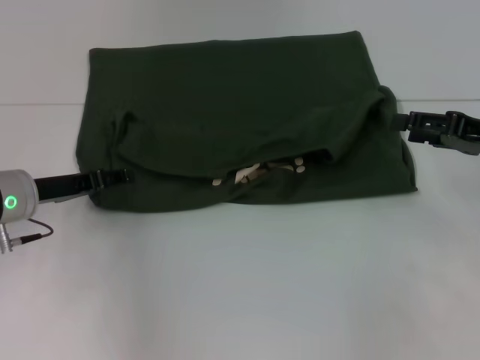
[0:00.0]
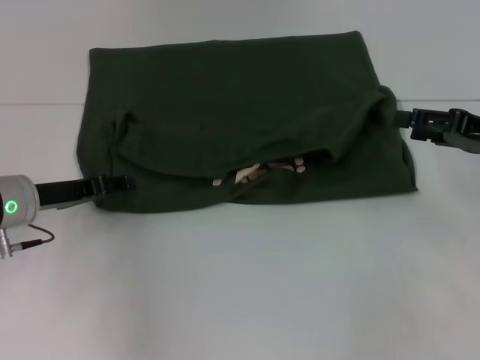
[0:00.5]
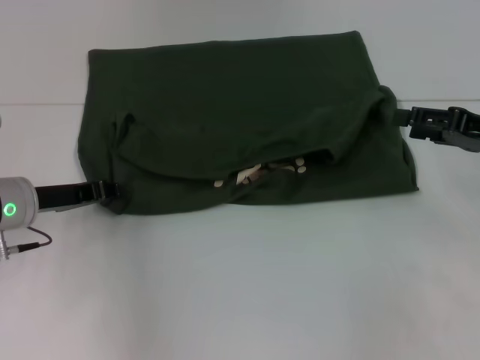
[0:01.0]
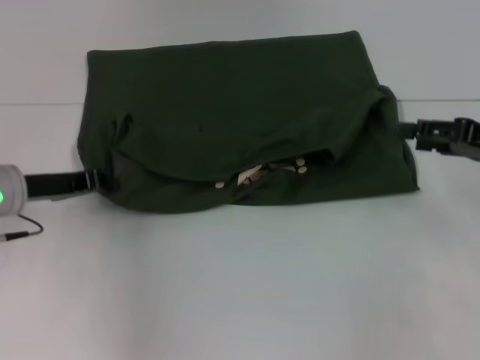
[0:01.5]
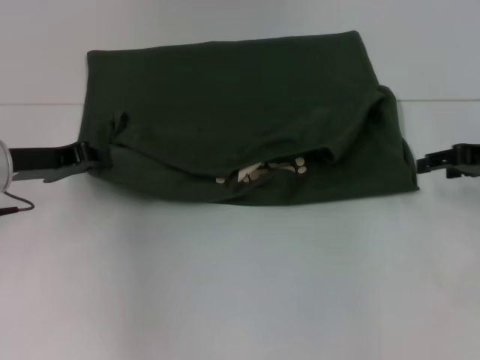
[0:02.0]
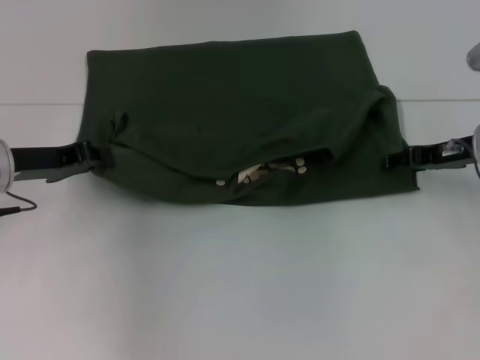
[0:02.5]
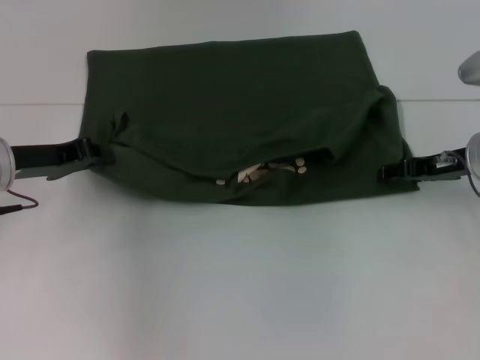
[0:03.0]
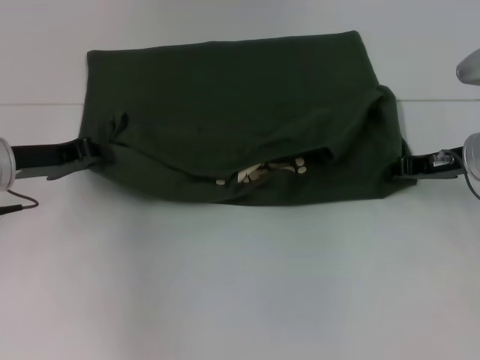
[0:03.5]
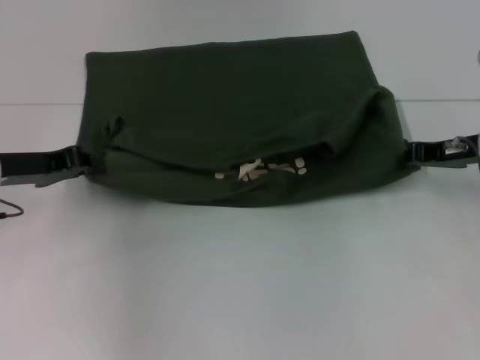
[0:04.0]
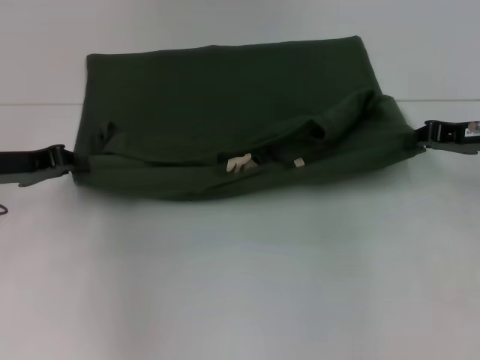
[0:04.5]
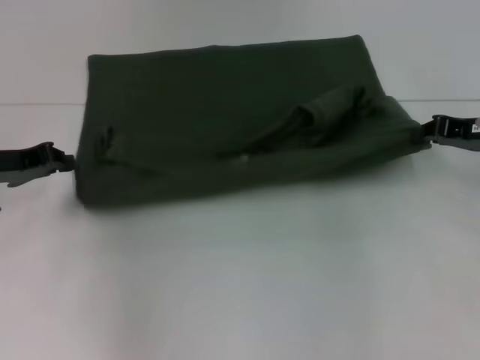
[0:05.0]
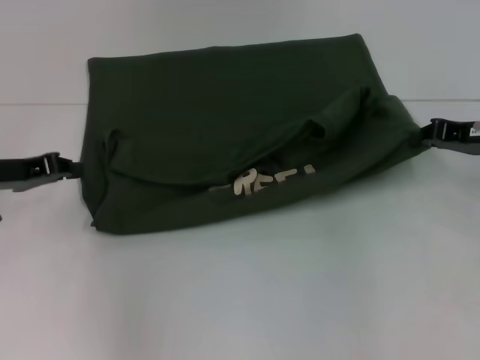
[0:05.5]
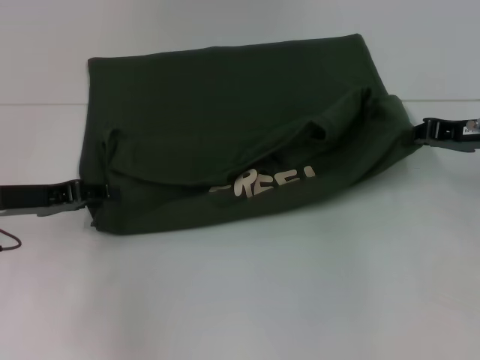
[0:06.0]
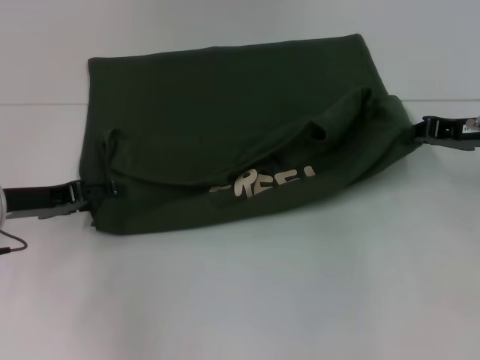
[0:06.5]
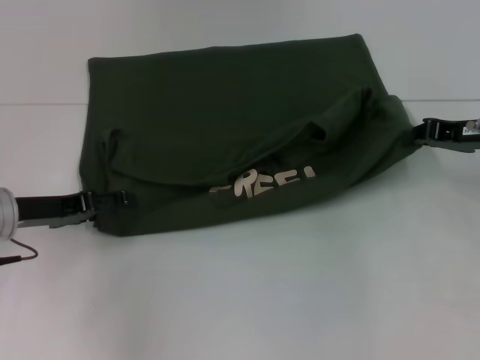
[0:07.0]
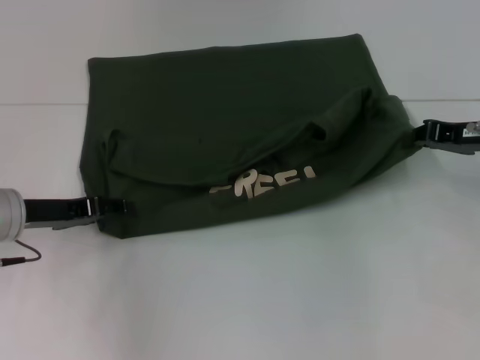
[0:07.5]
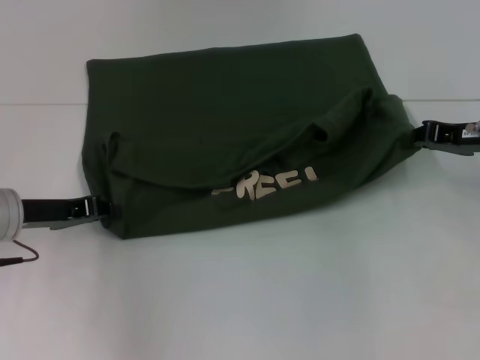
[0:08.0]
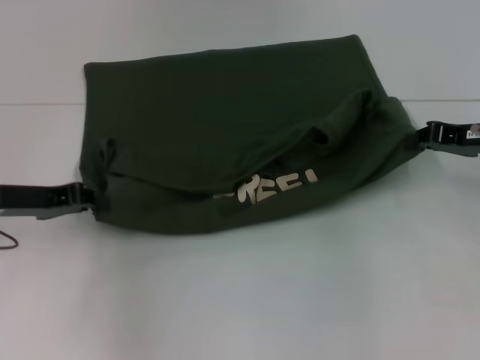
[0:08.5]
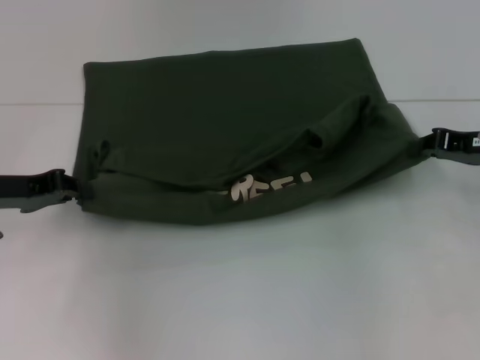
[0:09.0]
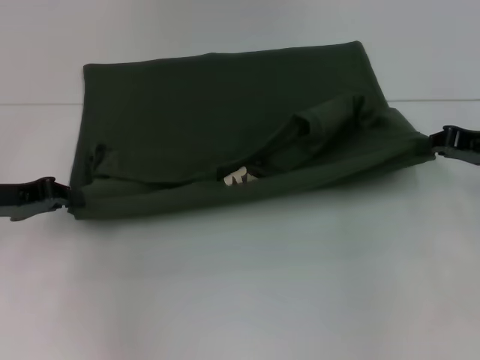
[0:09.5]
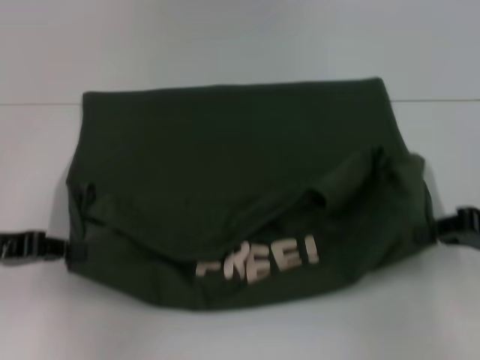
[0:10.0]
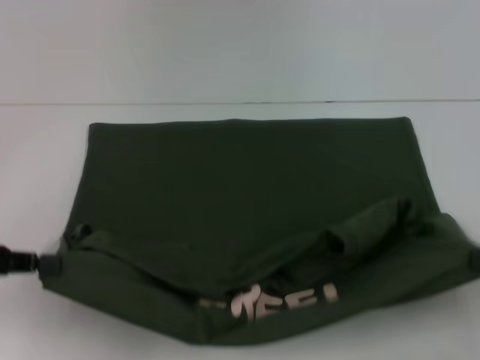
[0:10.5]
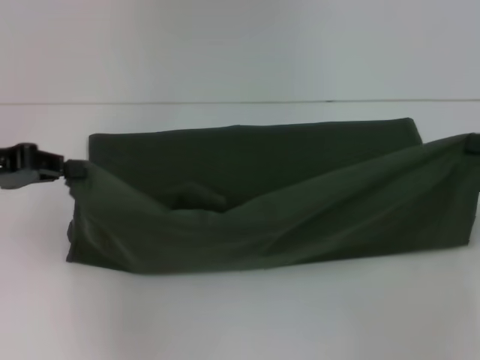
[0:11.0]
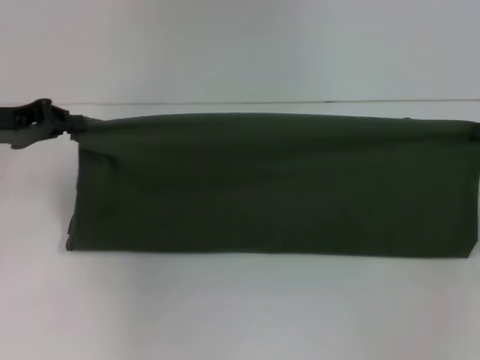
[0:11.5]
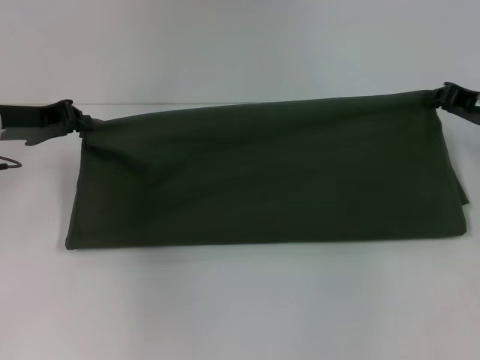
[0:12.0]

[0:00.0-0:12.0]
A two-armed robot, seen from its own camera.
Step, 0:00.0 to 0:10.0: Pull the clothes with your left hand.
Step, 0:00.0 to 0:10.0: Pull the clothes with your right hand.
0:00.0 to 0:02.0: The left gripper closes.
0:02.0 to 0:04.0: The right gripper shifts by roughly 5 cm, and closes.
0:04.0 to 0:06.0: There are only small adjustments of the grippers.
0:06.0 to 0:08.0: The left gripper opens and closes again.
0:08.0 to 0:10.0: The right gripper moves backward, some 10 cm; the left gripper moves backward, some 5 cm.
0:10.0 to 0:12.0: The grippers both shift forward by about 10 cm.

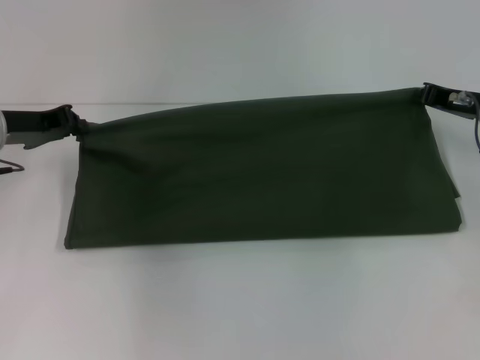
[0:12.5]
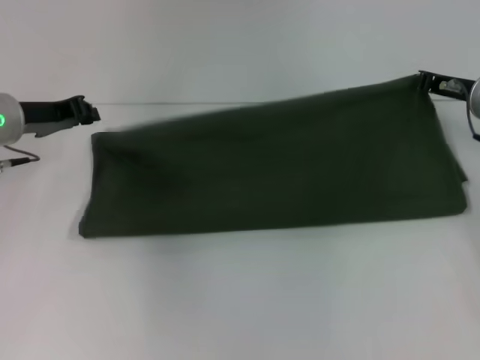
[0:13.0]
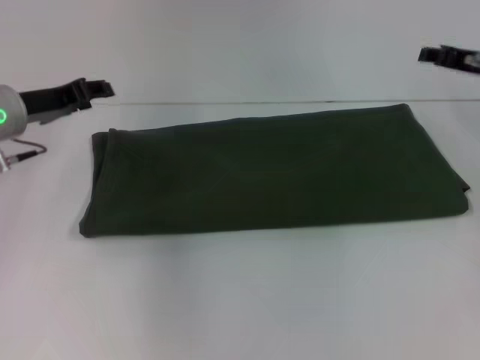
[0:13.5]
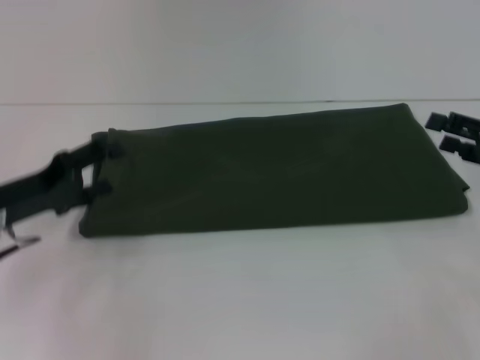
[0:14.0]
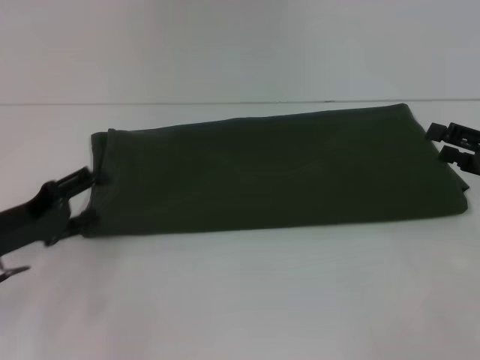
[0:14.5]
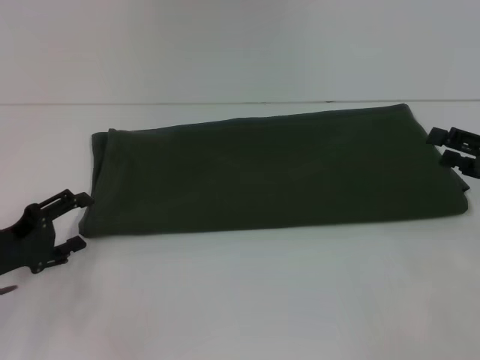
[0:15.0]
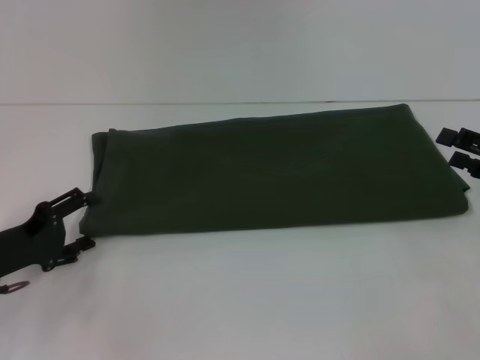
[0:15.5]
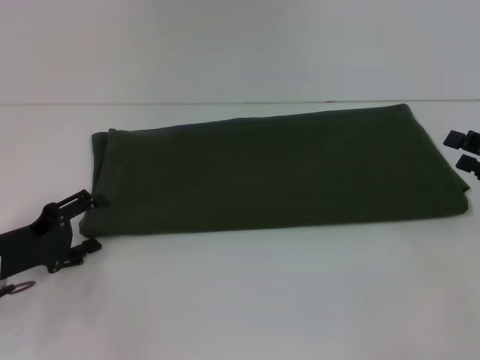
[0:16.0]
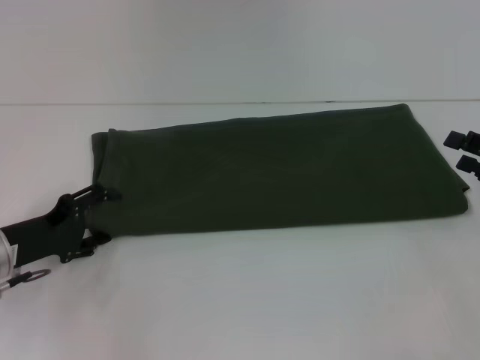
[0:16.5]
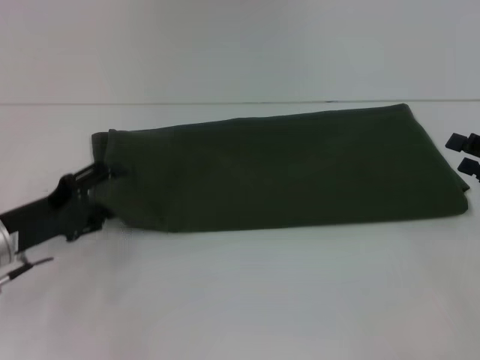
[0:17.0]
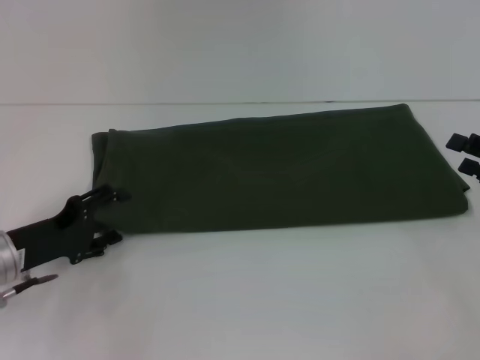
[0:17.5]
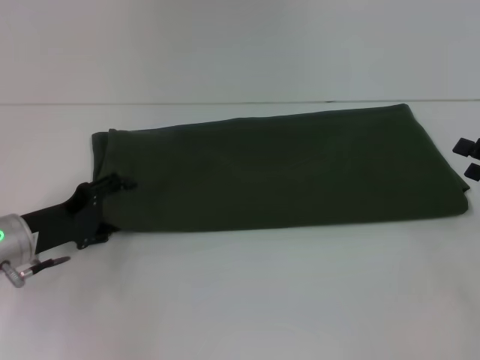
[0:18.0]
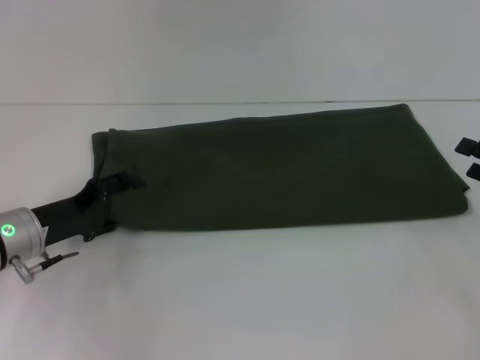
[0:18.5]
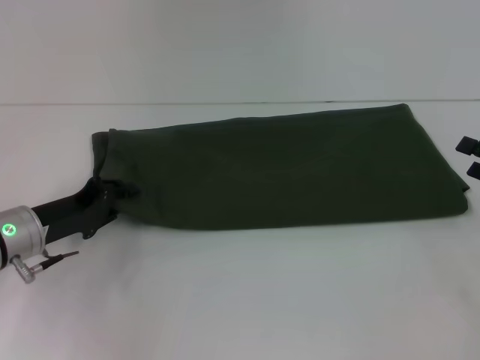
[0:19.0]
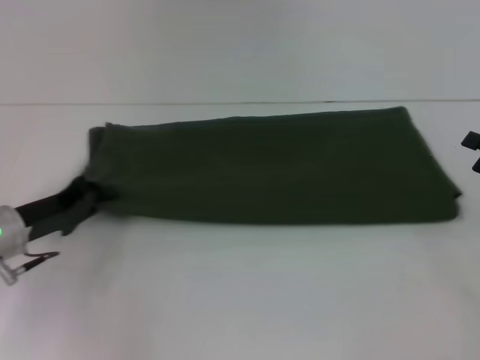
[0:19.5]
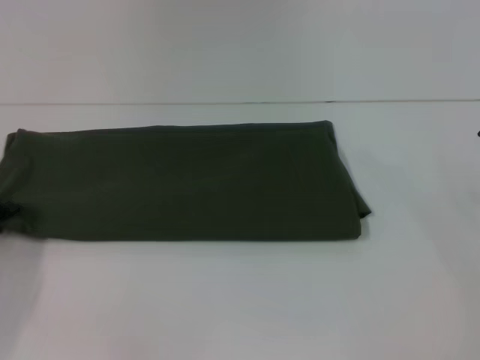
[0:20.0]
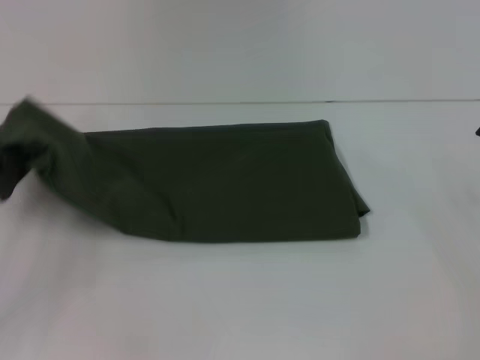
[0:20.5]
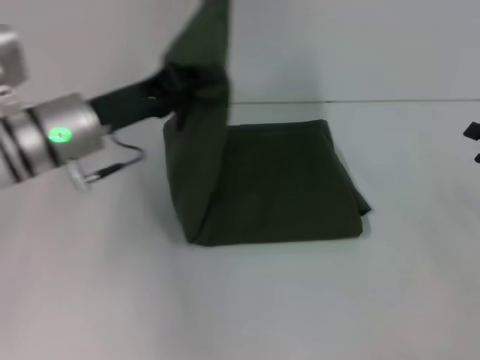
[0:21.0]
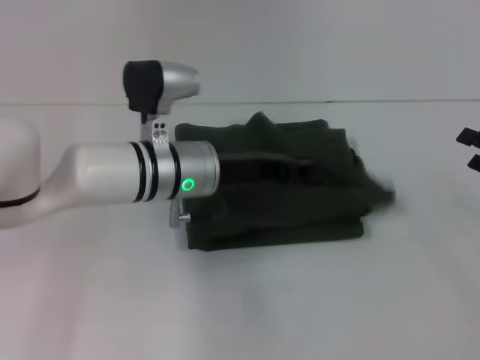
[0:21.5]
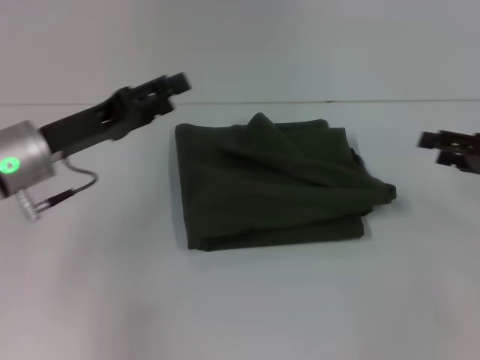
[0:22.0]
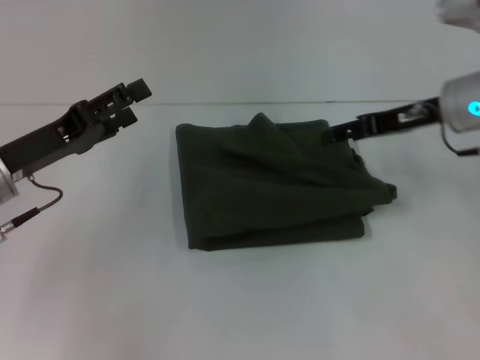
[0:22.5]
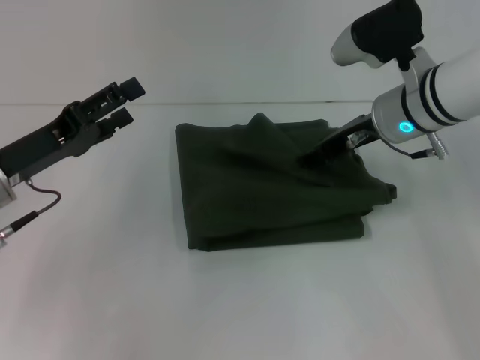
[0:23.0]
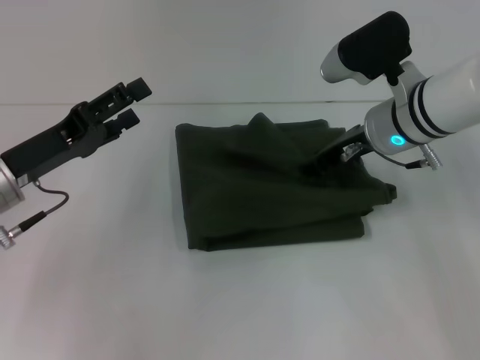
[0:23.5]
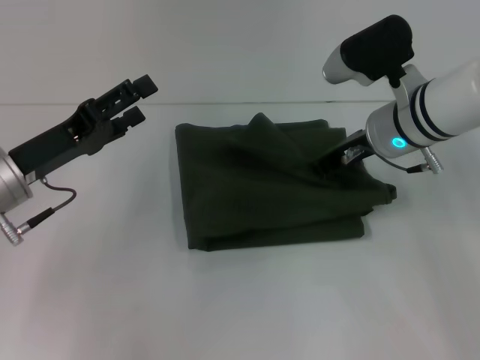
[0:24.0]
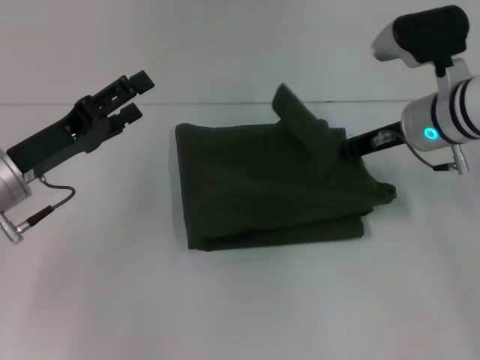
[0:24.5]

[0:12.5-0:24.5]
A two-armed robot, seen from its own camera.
0:12.5 to 0:14.5: The left gripper is displaced backward and downward by approximately 15 cm, and opens up, while the right gripper shifts some 10 cm backward and to the right, and opens its fingers.
0:14.5 to 0:18.5: The grippers stay close to where they were, moving slightly.
0:18.5 to 0:20.5: The left gripper is displaced to the left by about 5 cm, and closes up.
0:20.5 to 0:22.5: The right gripper travels to the left, forward and upward by approximately 20 cm; the left gripper goes to the right and returns, some 25 cm each way, and opens its fingers.
0:22.5 to 0:24.5: The right gripper closes.

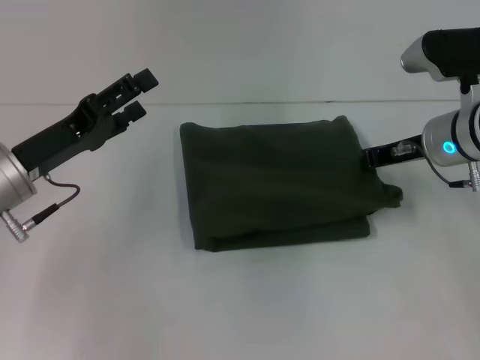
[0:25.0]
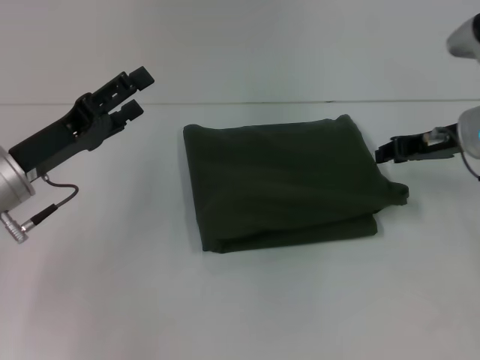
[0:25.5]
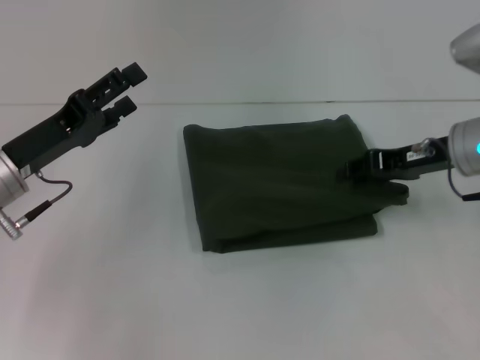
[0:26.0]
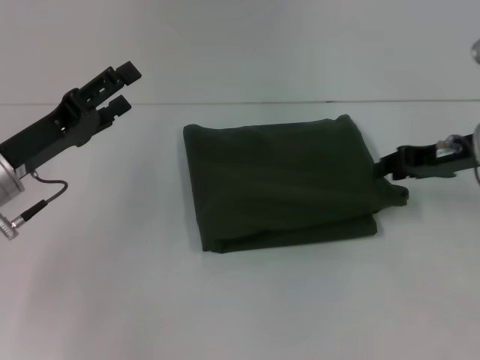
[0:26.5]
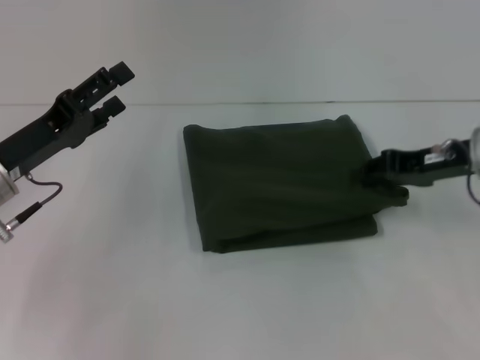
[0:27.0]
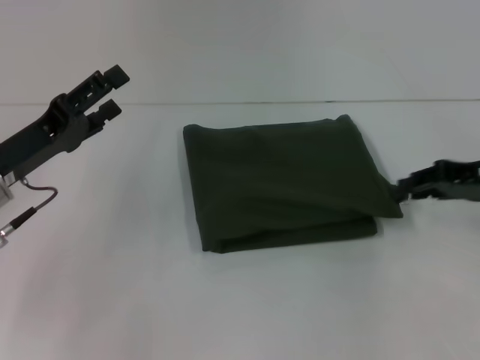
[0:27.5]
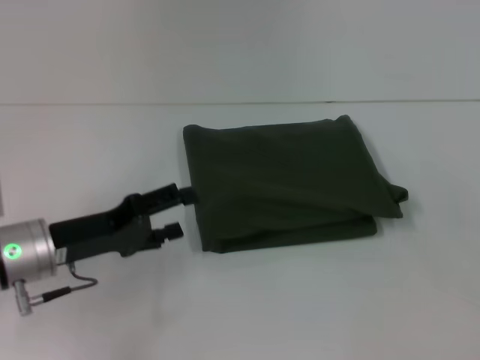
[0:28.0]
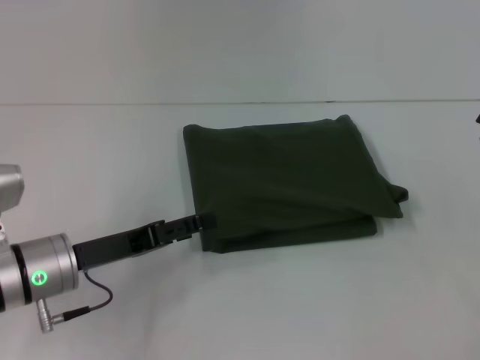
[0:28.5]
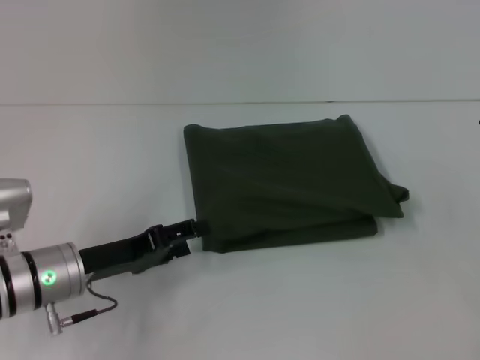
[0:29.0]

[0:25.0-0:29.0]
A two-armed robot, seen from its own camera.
0:25.0 to 0:27.0: The right gripper changes place by about 5 cm.
0:27.0 to 0:29.0: The left gripper goes approximately 5 cm downward; the right gripper is displaced to the right and backward by some 15 cm, and opens.
